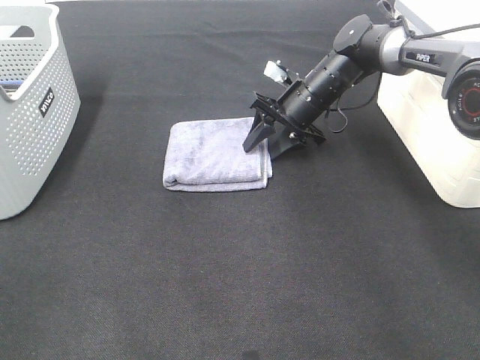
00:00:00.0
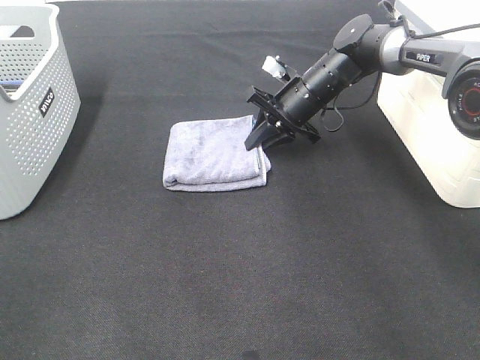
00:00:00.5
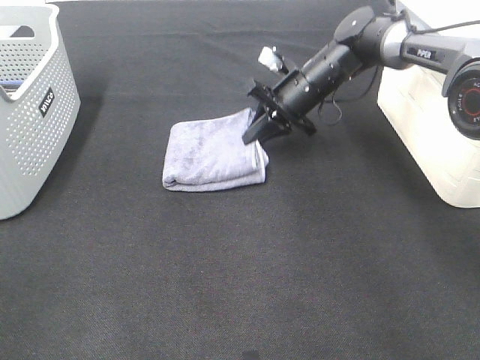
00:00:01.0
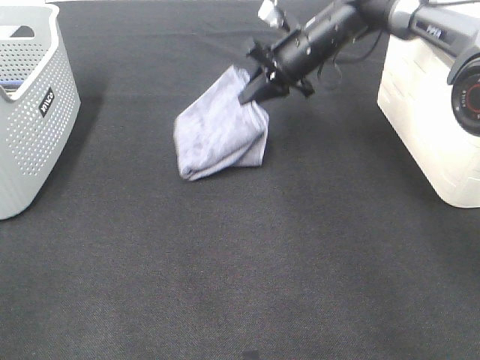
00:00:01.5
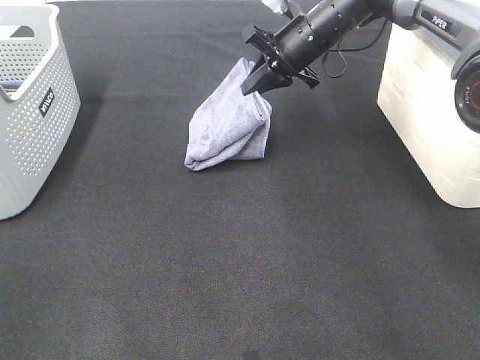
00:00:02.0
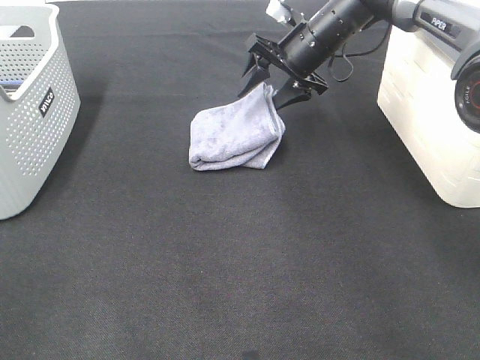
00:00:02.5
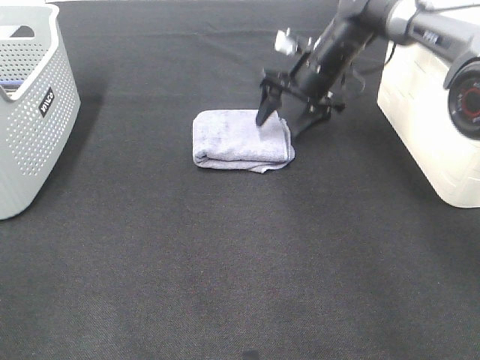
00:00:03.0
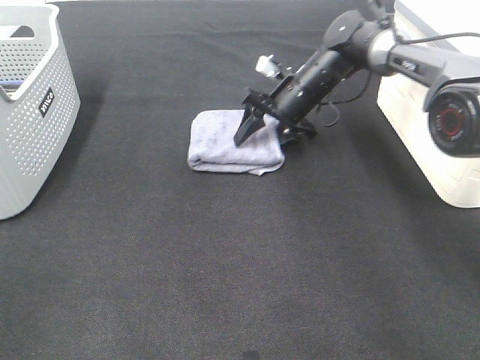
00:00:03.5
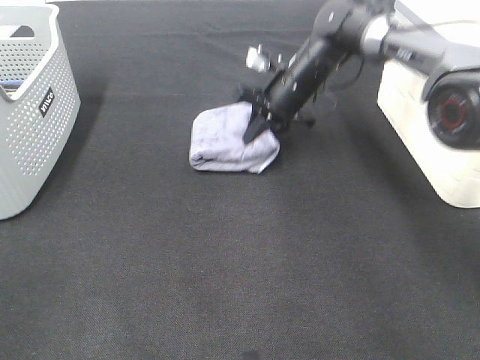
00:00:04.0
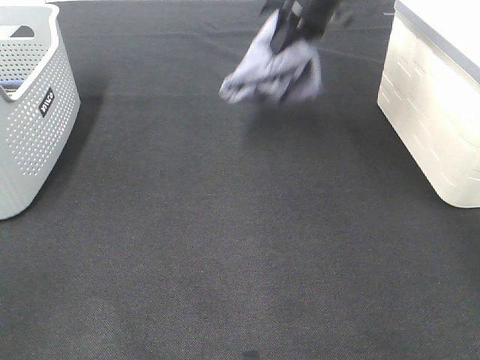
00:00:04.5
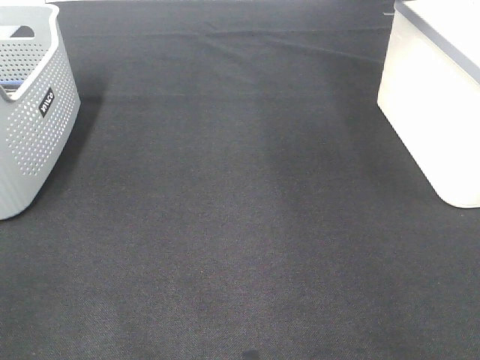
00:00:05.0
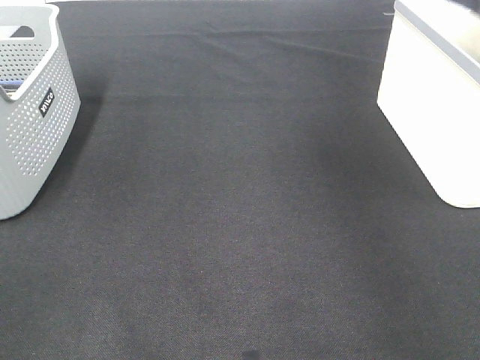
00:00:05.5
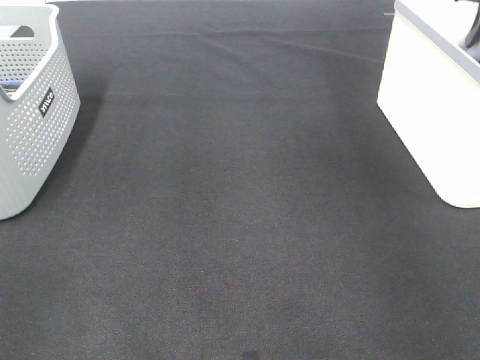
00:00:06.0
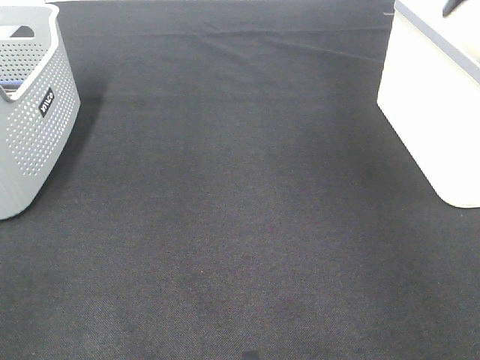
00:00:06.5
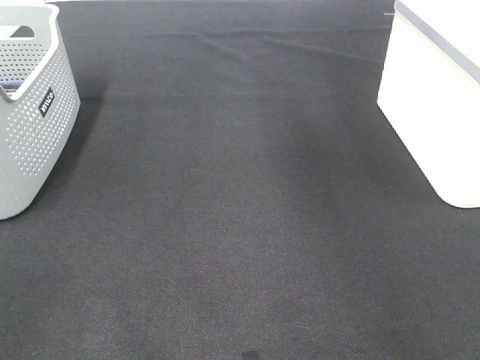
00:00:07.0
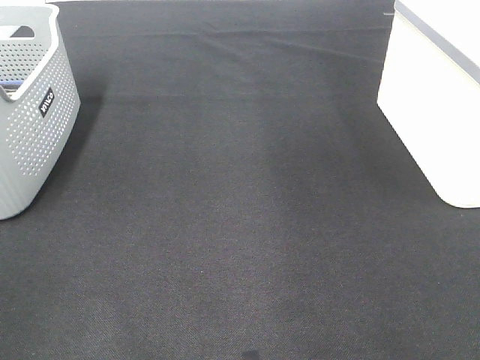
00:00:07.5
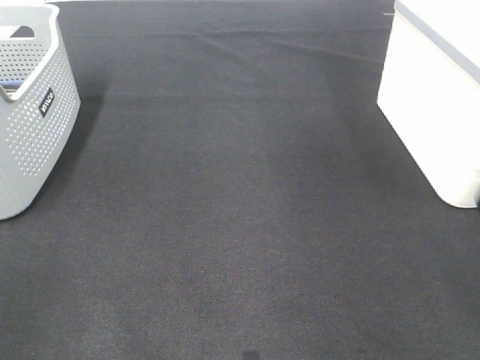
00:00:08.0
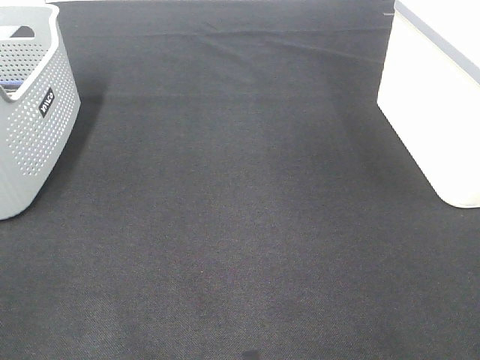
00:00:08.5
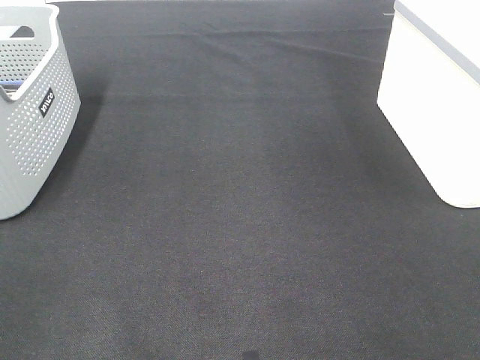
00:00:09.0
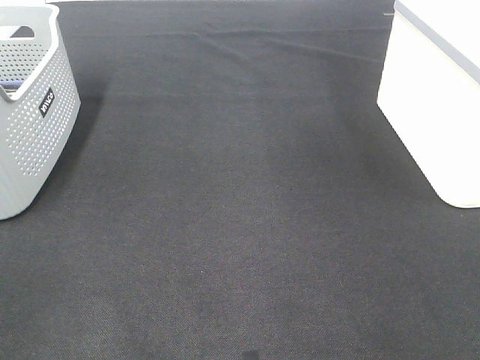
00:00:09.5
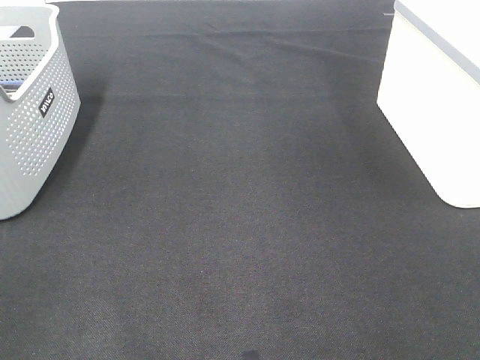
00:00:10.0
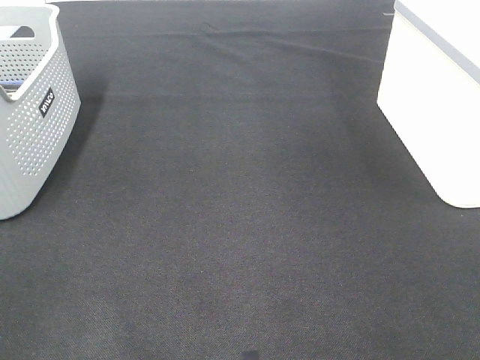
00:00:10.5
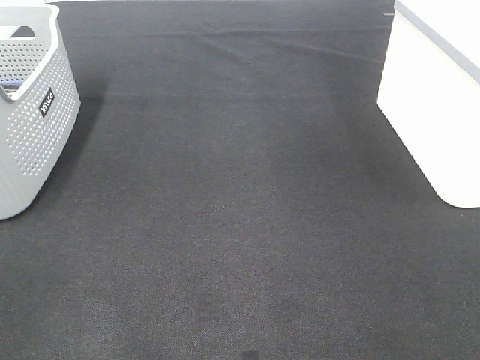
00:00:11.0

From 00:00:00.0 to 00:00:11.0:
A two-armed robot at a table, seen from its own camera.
Step, from 00:00:00.0 to 00:00:03.5: Right hand: grab the folded grey towel.
Step, from 00:00:04.0 to 00:00:06.0: Right hand: place the grey towel in right basket.
From 00:00:00.0 to 00:00:02.0: The right gripper goes about 10 cm upward, and closes.
From 00:00:02.0 to 00:00:03.5: The right gripper shifts some 10 cm downward, and opens.
From 00:00:03.5 to 00:00:05.5: The right gripper shifts some 40 cm upward and to the right, and closes.

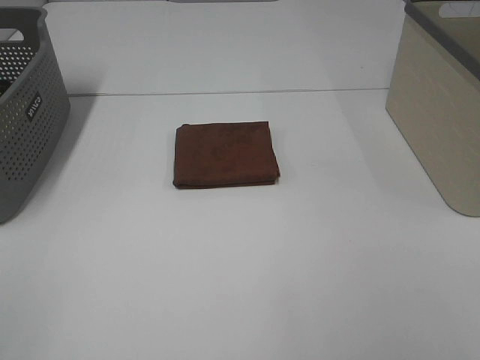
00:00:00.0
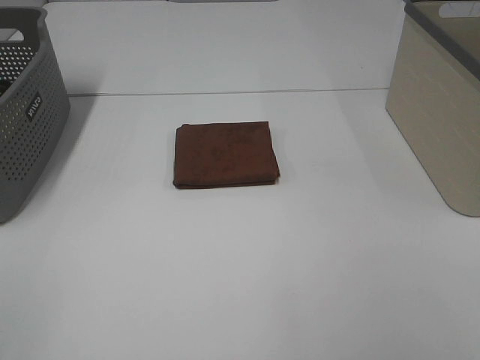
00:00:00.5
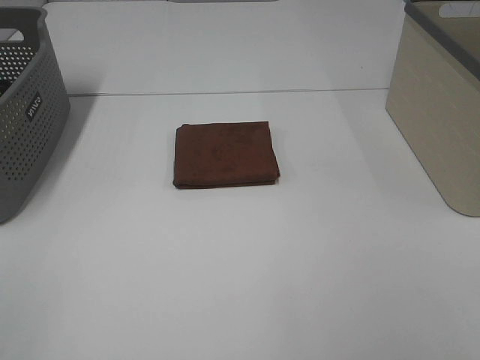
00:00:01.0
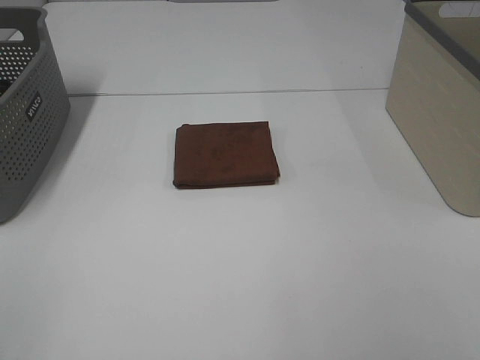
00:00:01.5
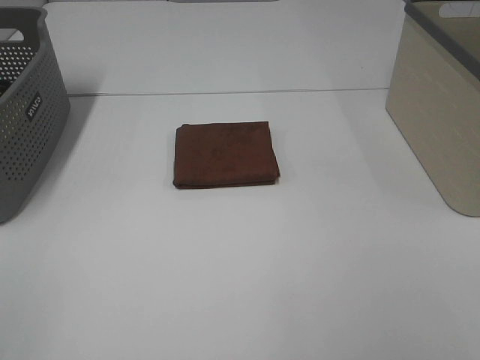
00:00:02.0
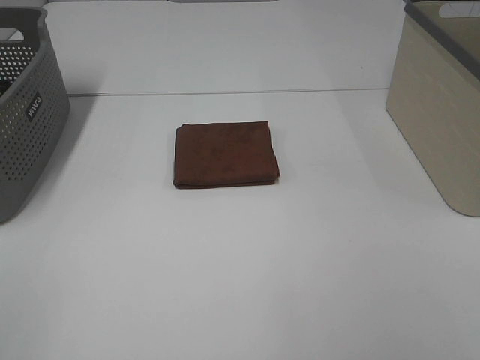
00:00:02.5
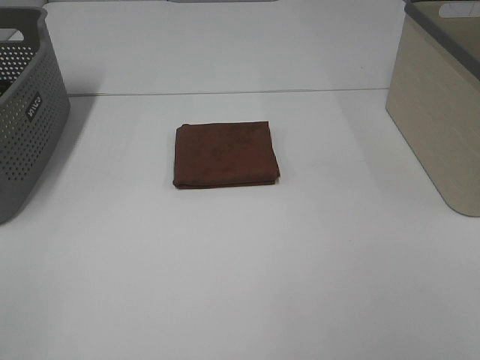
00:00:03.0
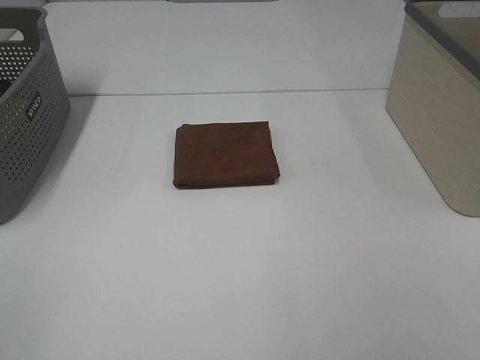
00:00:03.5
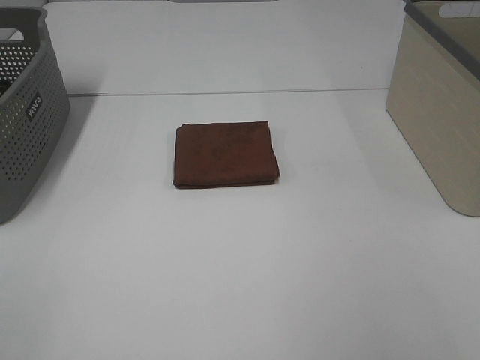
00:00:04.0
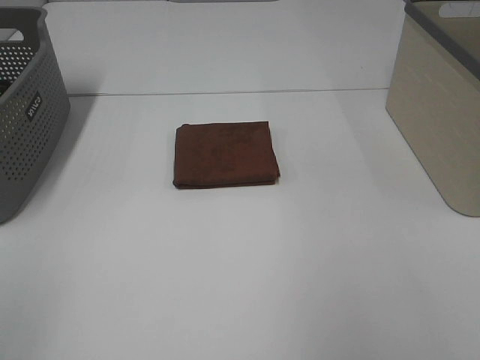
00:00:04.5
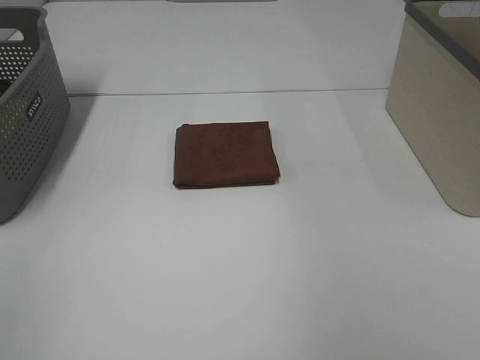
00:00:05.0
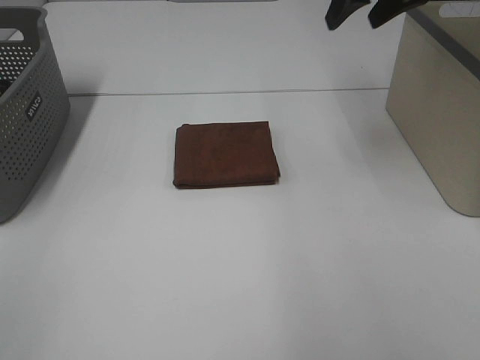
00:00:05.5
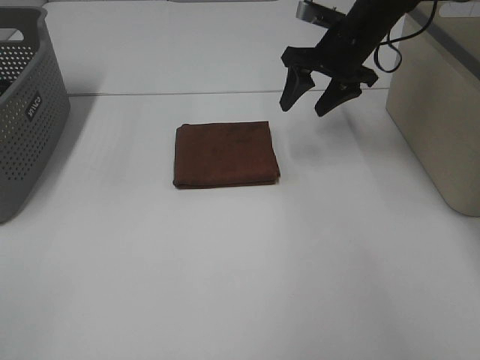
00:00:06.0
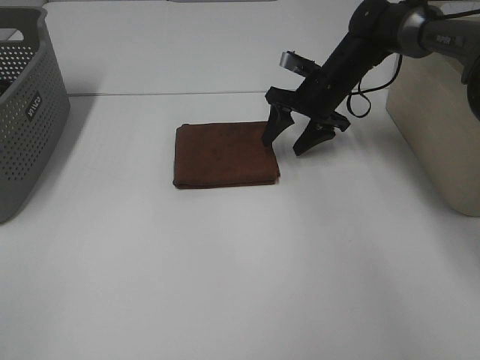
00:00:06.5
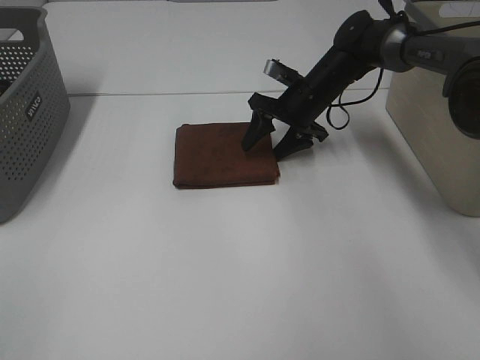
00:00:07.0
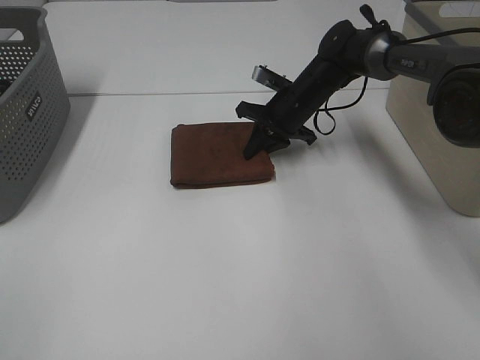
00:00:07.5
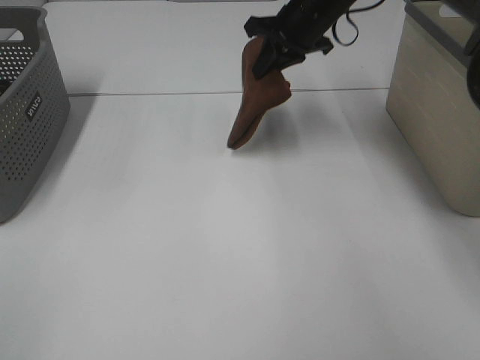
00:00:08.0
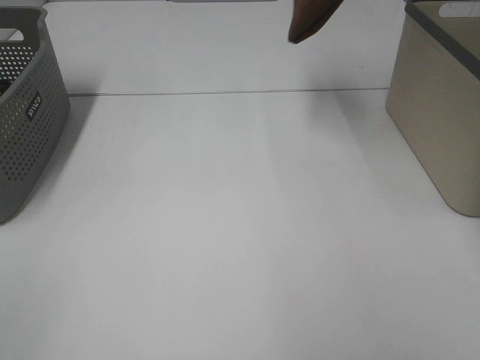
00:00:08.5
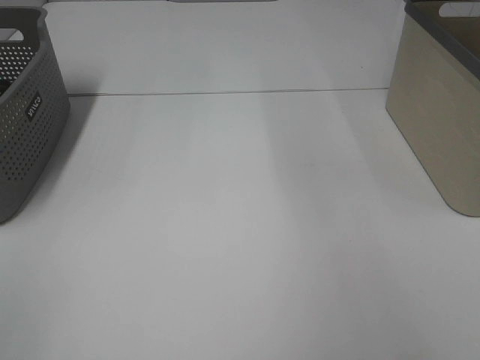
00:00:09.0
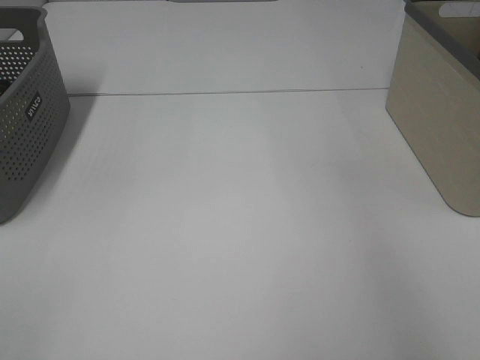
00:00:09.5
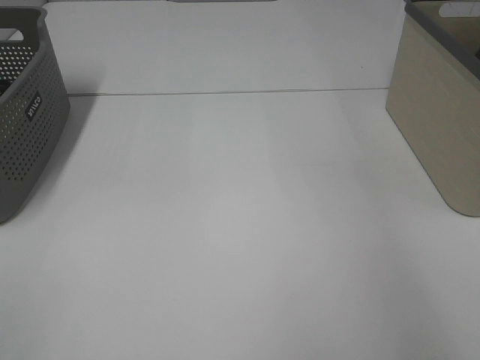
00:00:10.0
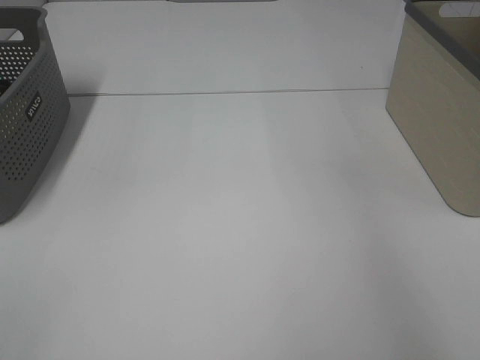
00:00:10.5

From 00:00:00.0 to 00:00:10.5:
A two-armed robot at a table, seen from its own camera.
Step, from 00:00:00.0 to 00:00:07.0: Right hand: grab the folded brown towel.
Step, from 00:00:07.5 to 00:00:10.0: Right hand: place the brown towel in right basket.
From 00:00:00.0 to 00:00:02.0: The two grippers keep their place.
From 00:00:04.0 to 00:00:06.5: The right gripper goes roughly 50 cm forward and downward.
From 00:00:06.5 to 00:00:08.5: The right gripper is displaced upward by approximately 30 cm, and closes.
From 00:00:08.5 to 00:00:10.5: The right gripper goes roughly 20 cm to the right, and opens up.

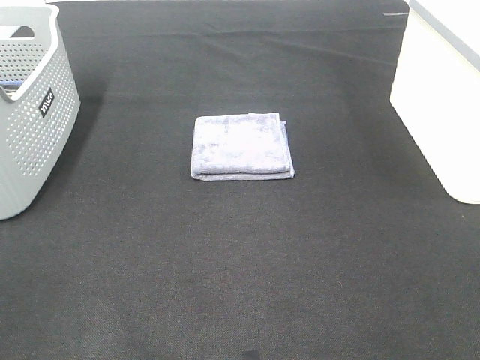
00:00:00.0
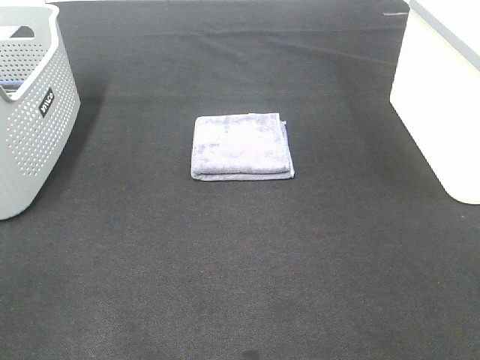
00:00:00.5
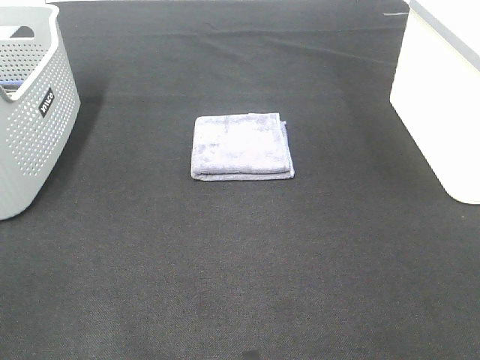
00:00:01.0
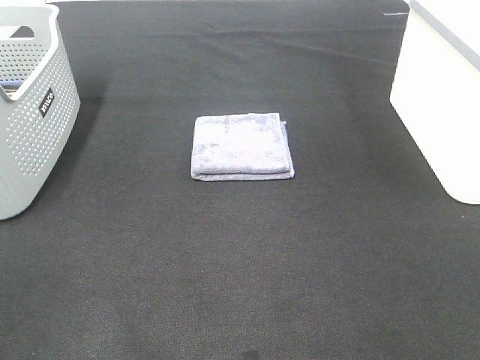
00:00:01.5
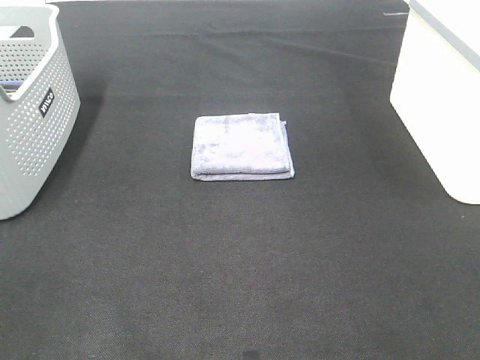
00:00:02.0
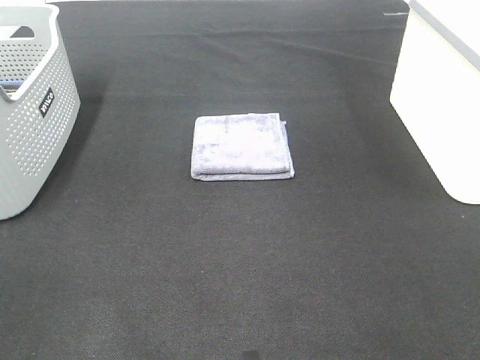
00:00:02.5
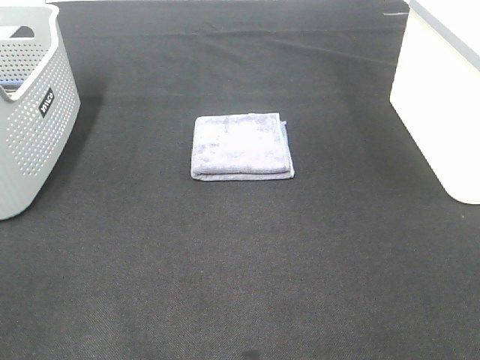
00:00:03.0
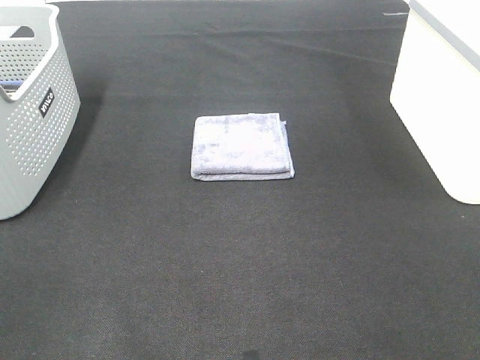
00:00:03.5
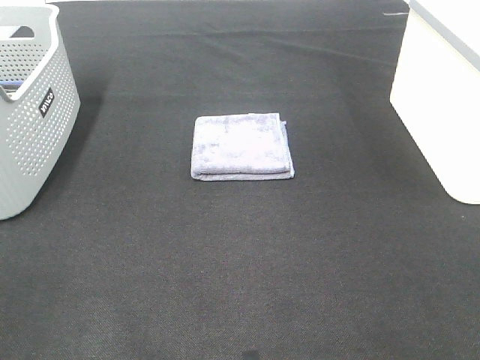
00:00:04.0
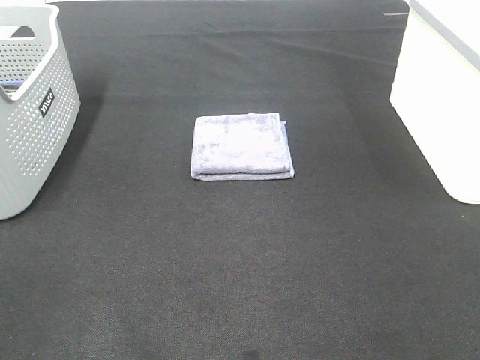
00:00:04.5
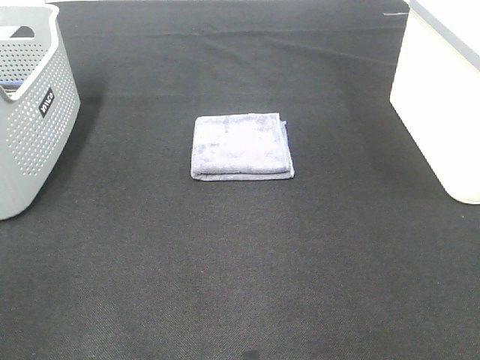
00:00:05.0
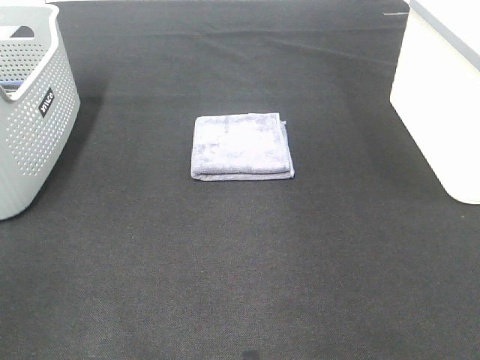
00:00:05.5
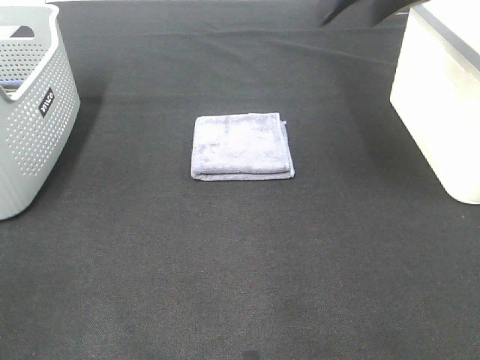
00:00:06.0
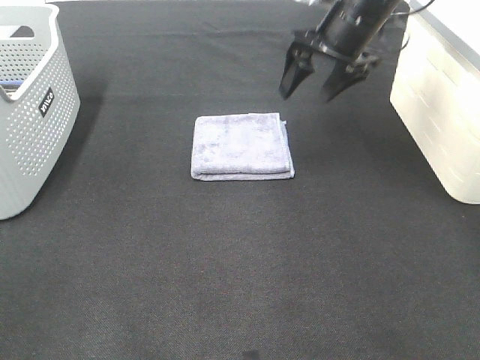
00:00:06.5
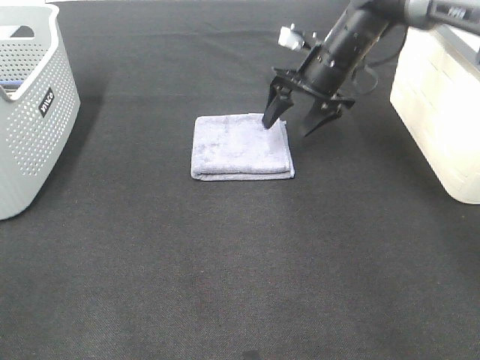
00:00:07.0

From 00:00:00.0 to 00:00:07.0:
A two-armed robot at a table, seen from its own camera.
From 00:00:00.0 to 00:00:03.5: Both grippers stay put.
From 00:00:05.0 to 00:00:07.0: The right gripper heads forward, downward and to the left, covering about 40 cm.
